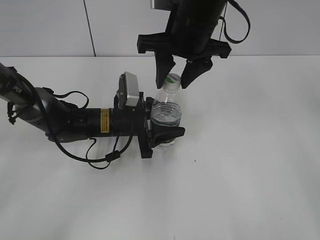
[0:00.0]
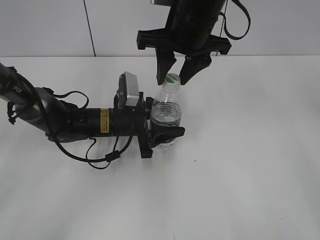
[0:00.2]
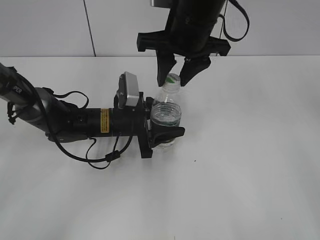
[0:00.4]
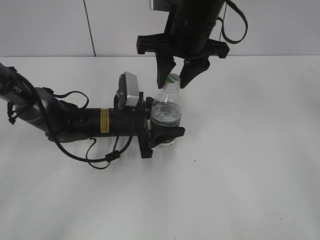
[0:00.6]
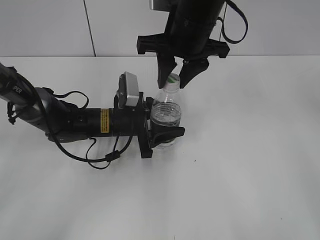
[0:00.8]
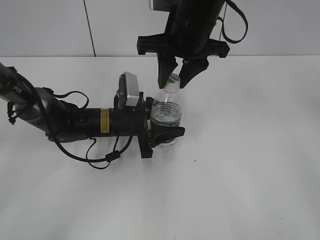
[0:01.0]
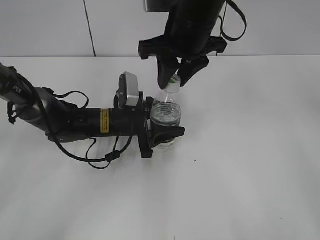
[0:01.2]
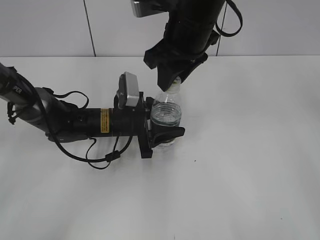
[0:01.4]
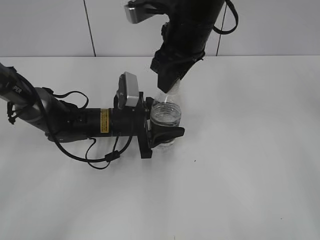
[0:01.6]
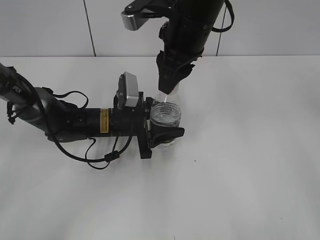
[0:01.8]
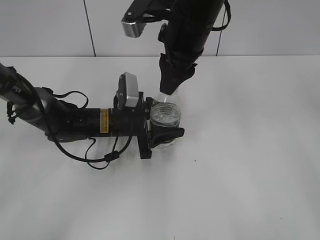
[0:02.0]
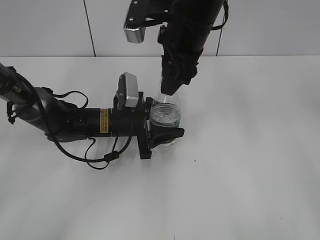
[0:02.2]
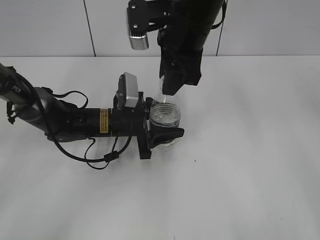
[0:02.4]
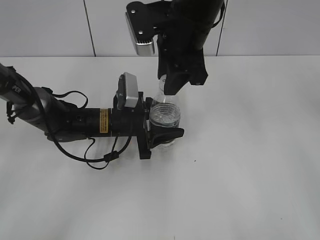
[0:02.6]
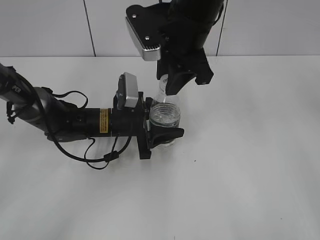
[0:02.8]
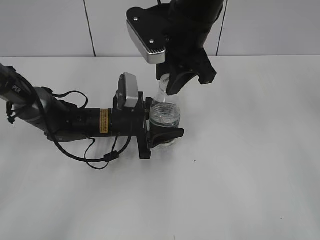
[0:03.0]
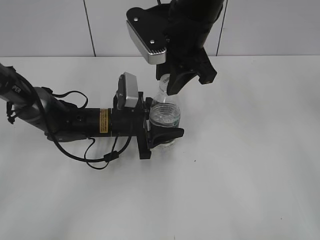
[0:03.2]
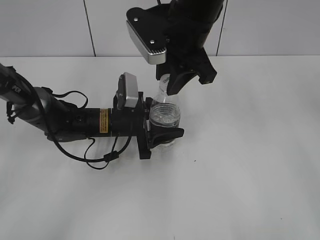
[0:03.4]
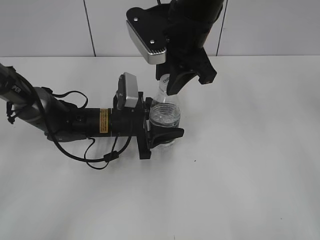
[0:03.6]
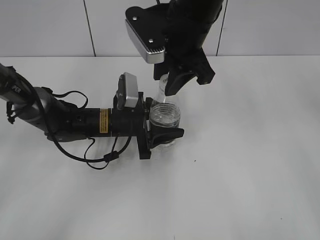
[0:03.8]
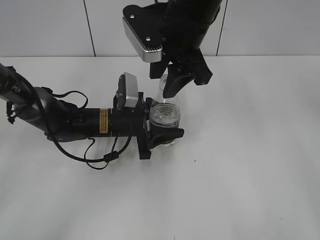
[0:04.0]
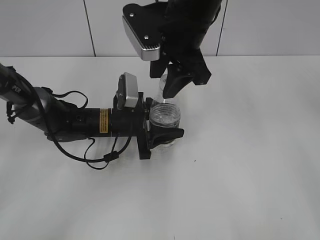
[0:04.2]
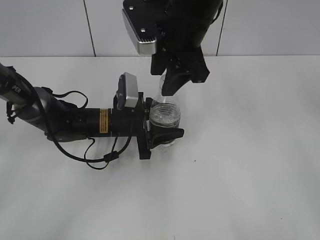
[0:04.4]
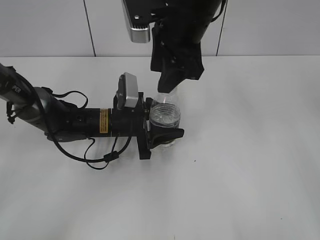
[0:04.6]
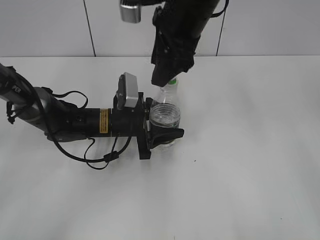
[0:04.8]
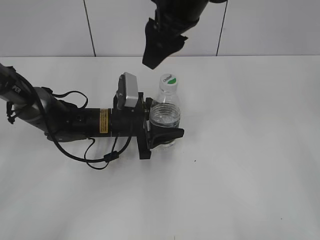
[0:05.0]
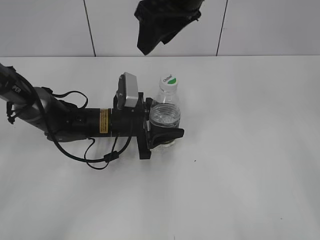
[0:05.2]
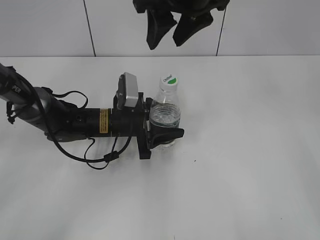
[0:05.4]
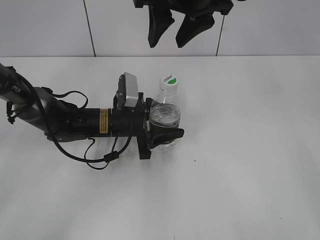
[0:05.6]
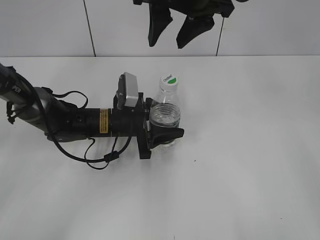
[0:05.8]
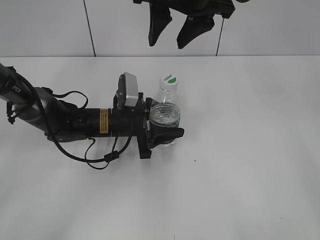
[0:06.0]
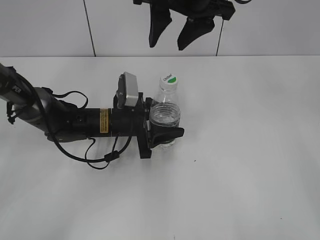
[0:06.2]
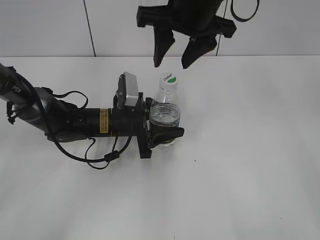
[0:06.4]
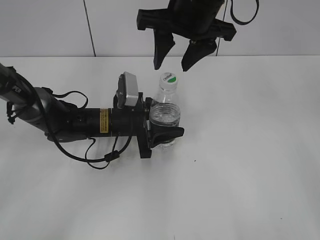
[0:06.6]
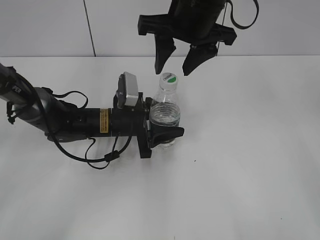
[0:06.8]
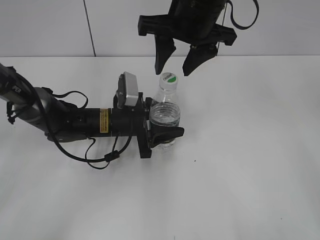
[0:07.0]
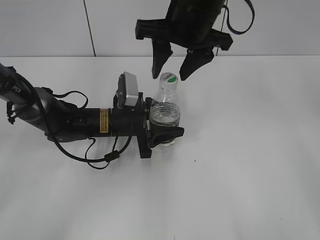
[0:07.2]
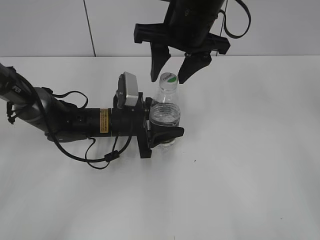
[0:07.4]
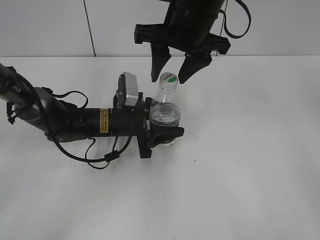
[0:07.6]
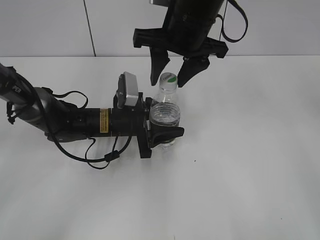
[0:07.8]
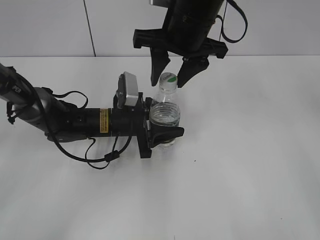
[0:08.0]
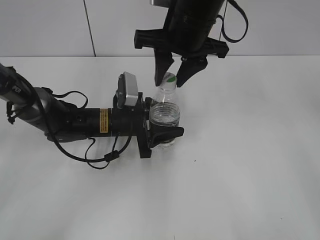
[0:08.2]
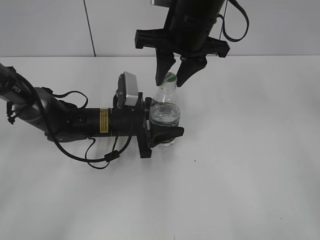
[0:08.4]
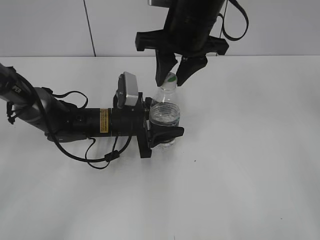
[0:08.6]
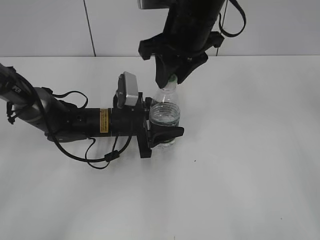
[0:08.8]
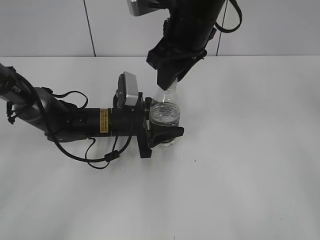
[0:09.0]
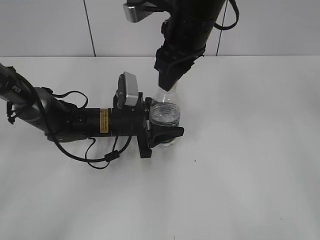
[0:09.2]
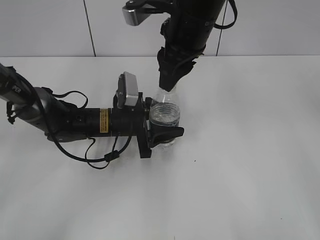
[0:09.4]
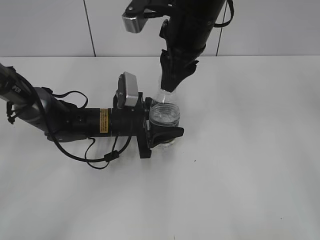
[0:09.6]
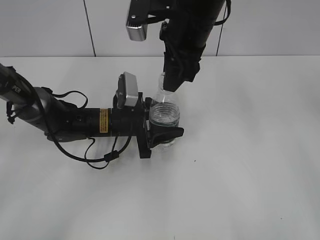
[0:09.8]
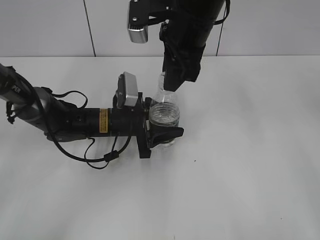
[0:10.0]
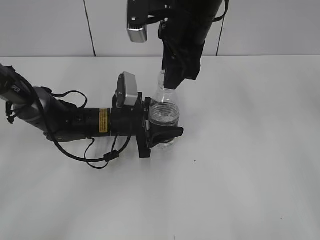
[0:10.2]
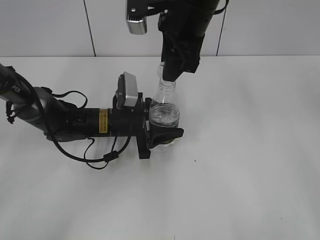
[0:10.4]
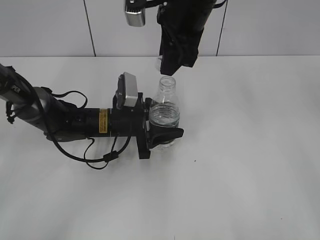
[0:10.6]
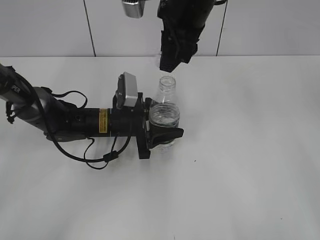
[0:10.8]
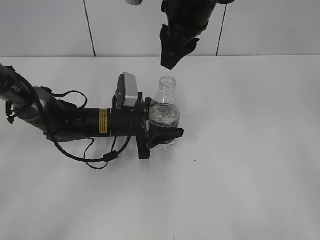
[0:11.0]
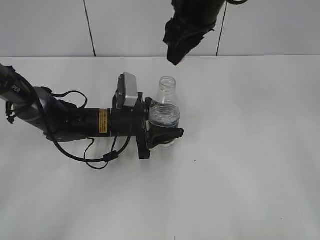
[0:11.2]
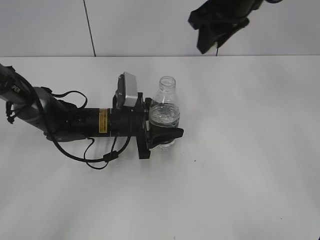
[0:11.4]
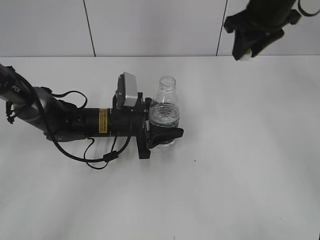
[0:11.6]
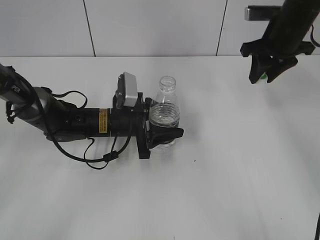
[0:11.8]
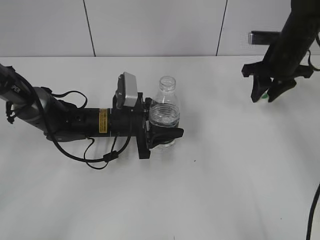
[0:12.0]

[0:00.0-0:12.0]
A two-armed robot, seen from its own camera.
Step, 0:00.0 to 0:10.8: Unscrew the bottle cap with the right gripper while holding the bottle with the left gripper.
0:00.0 to 0:01.6: The right gripper closes up.
0:03.0 to 0:04.4: The right gripper opens its fingers.
0:04.4 to 0:06.0: The right gripper shifts approximately 5 cm upward.
0:06.0 to 0:07.6: There are only small adjustments of the grippers.
0:07.6 to 0:09.0: The right gripper closes up.
0:10.4 to 0:12.0: The right gripper is displaced to the right, downward and forward by some 25 cm.

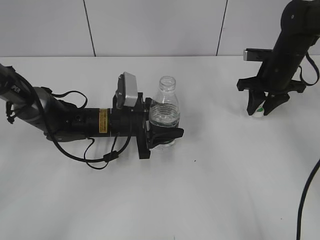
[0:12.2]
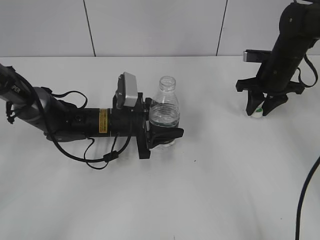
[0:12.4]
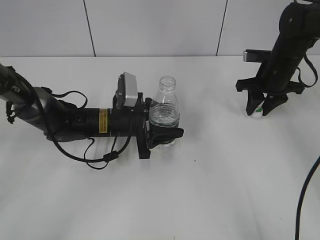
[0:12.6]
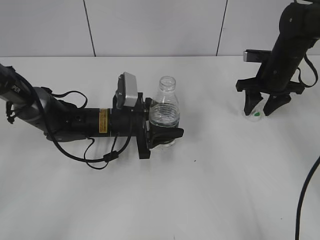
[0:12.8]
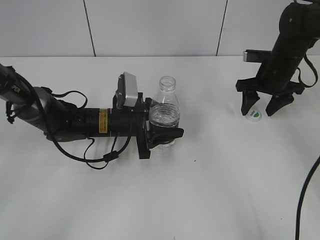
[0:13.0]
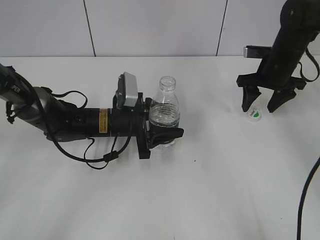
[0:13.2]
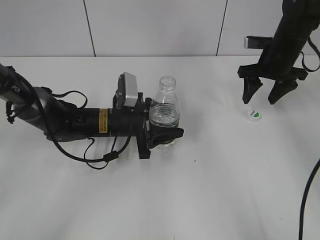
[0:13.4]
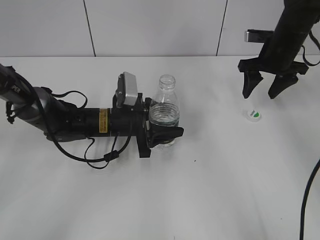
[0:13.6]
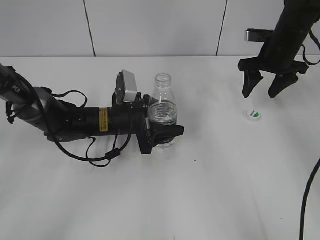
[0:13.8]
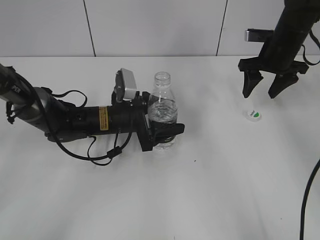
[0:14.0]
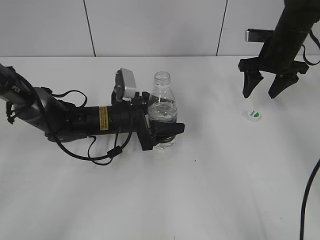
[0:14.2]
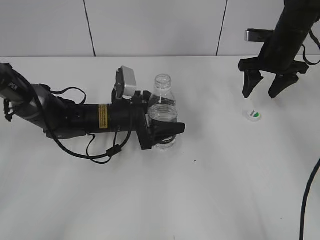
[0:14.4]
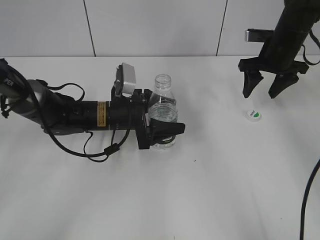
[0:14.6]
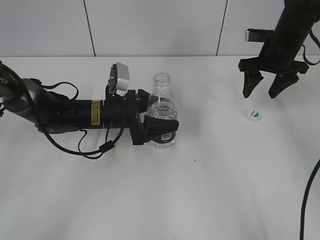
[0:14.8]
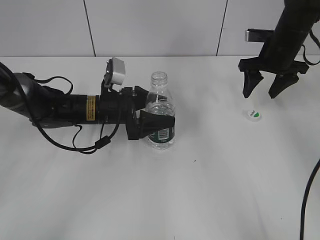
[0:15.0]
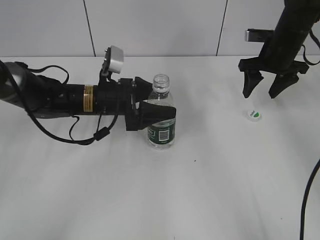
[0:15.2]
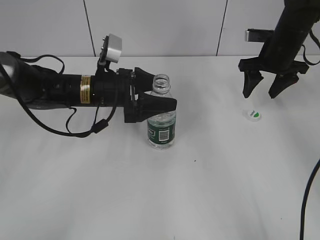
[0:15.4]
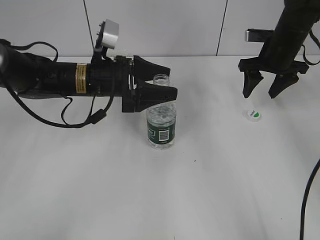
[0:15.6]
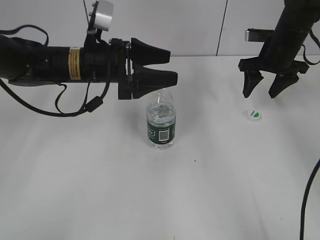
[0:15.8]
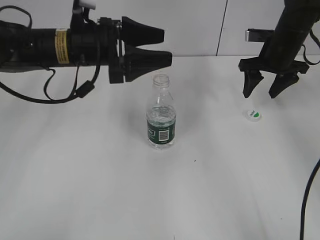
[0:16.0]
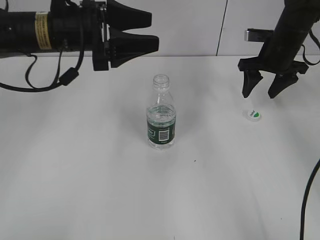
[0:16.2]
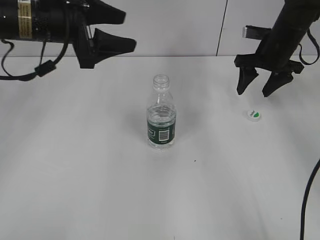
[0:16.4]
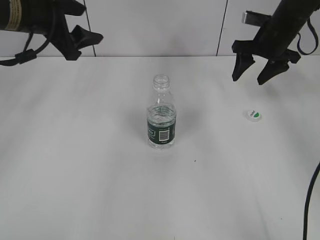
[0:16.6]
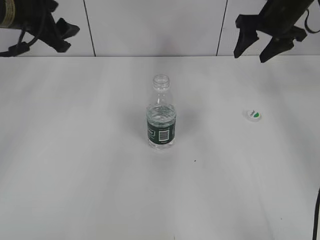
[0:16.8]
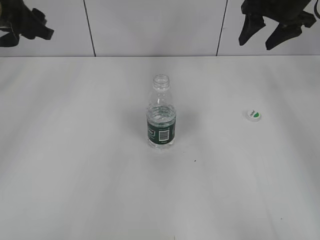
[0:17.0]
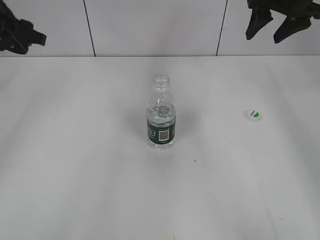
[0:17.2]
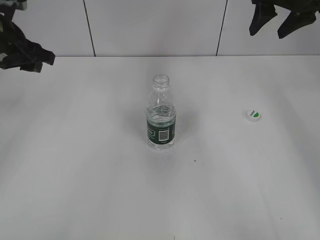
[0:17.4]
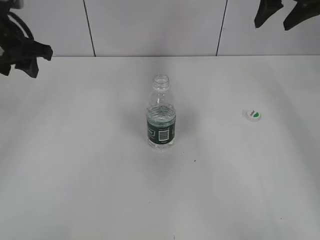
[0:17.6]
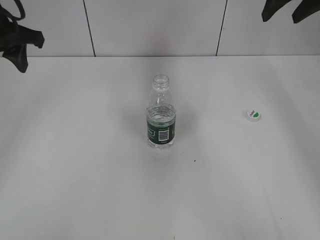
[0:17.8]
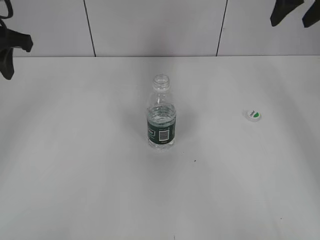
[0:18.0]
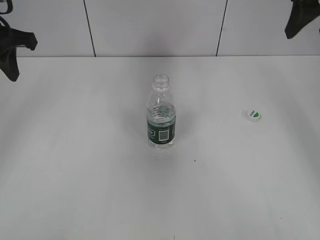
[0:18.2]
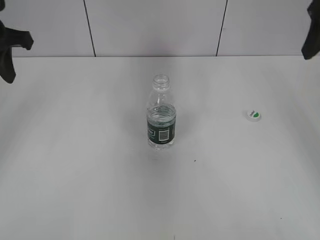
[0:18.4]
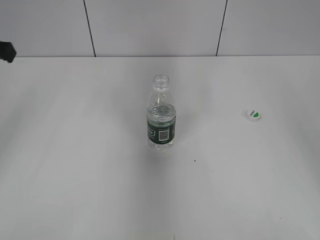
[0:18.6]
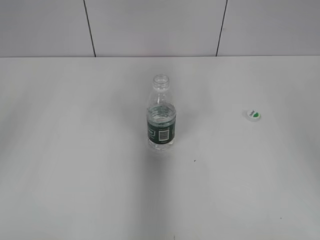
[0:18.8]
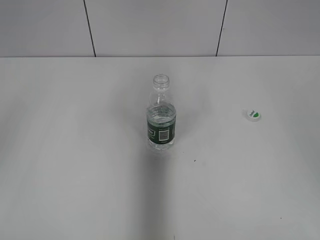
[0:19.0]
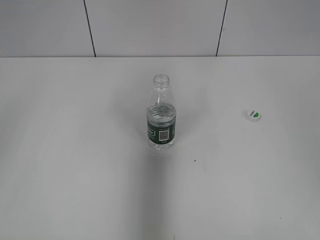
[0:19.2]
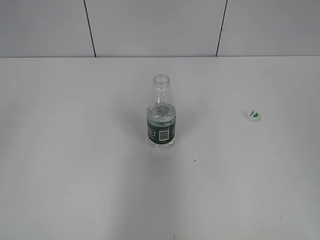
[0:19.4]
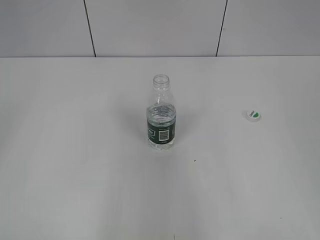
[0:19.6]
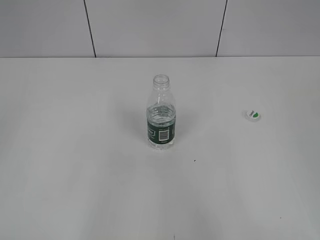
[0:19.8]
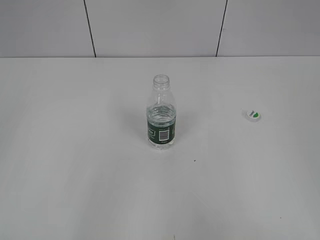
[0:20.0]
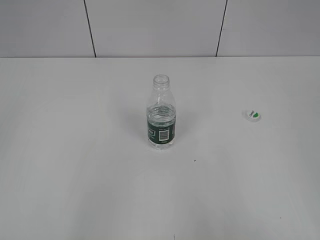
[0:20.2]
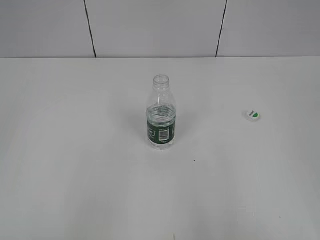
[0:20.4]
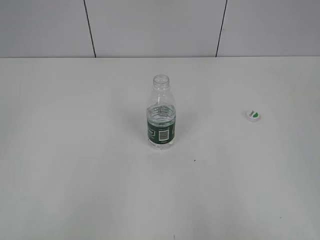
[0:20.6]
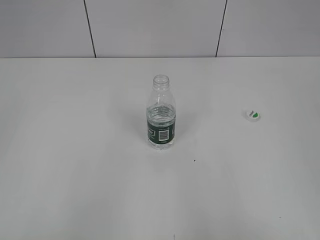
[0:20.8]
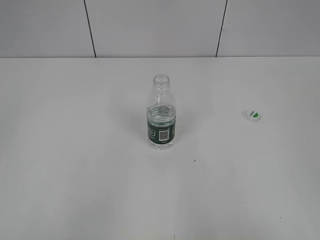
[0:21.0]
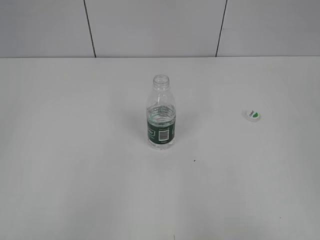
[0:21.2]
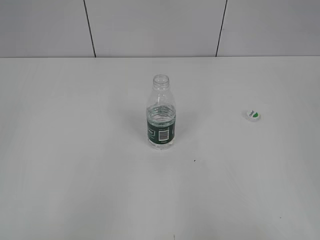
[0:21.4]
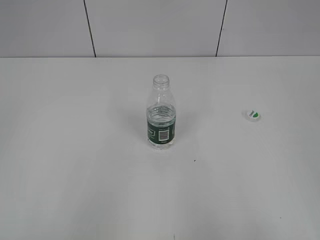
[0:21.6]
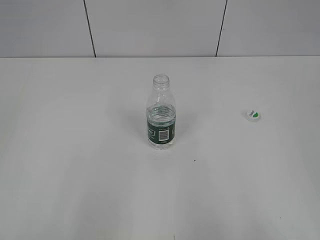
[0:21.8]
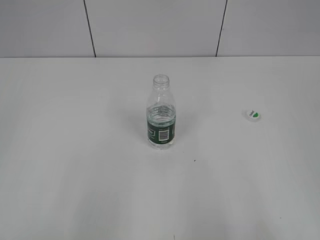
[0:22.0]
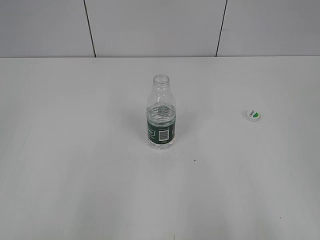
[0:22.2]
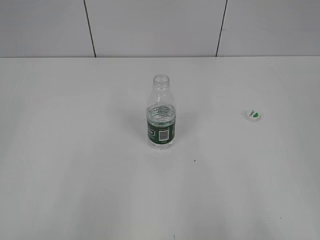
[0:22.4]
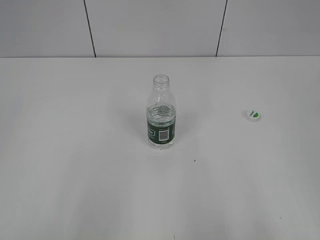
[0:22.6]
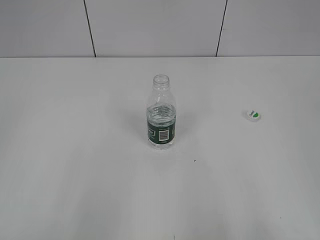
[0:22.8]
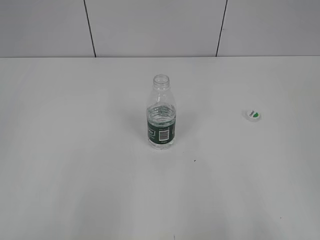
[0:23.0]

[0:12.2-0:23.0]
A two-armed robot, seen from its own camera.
Step, 0:13.0 to 0:15.4: Place the bottle on the table with the left gripper.
0:12.2 to 0:13.8: The right gripper opens.
0:13.8 to 0:15.2: The left gripper ends up approximately 5 cm from where it was.
0:15.2 to 0:16.8: The right gripper shifts roughly 5 cm upward; the left gripper shifts roughly 20 cm upward and to the left.
0:16.8 to 0:18.4: The right gripper moves backward and upward, approximately 20 cm; the left gripper heads backward, covering about 5 cm, and closes up.
0:18.4 to 0:20.0: Both grippers travel together backward, about 30 cm.
